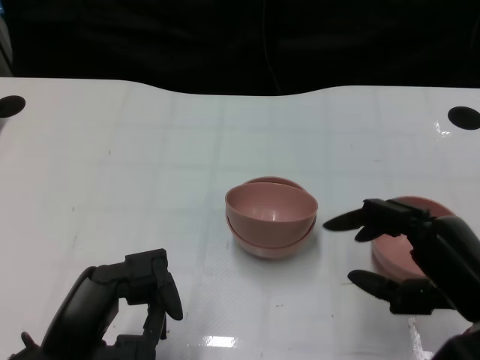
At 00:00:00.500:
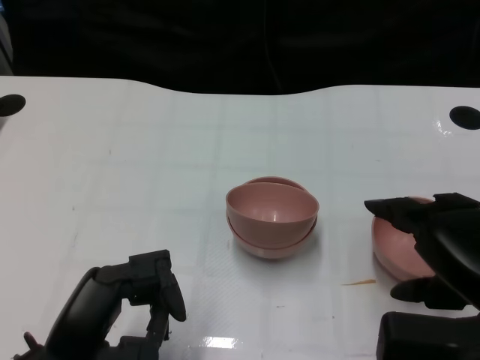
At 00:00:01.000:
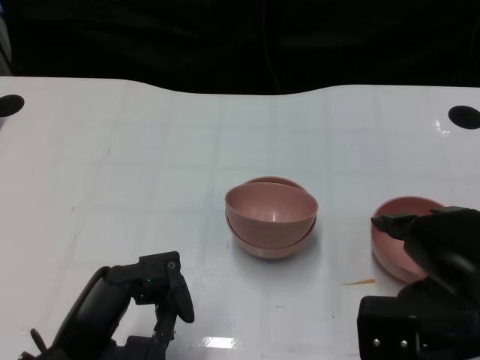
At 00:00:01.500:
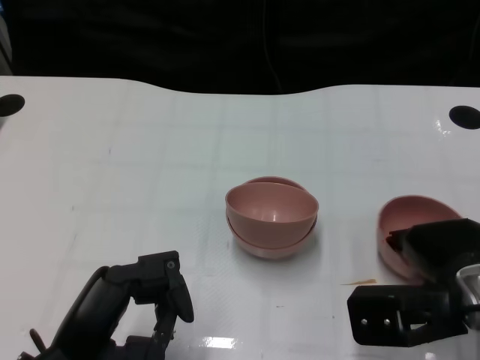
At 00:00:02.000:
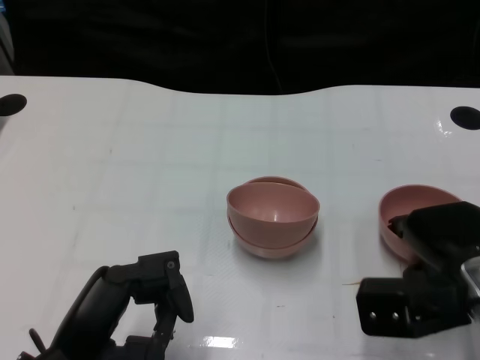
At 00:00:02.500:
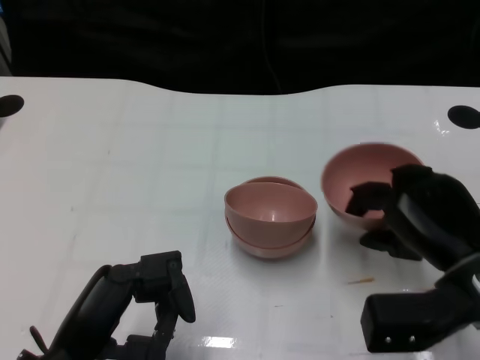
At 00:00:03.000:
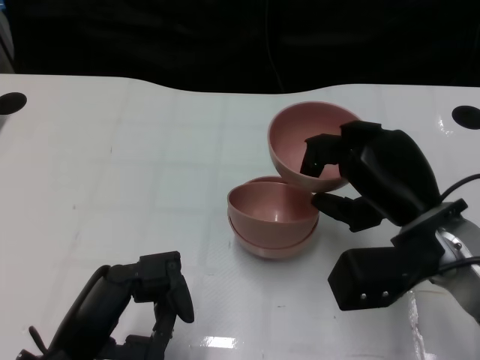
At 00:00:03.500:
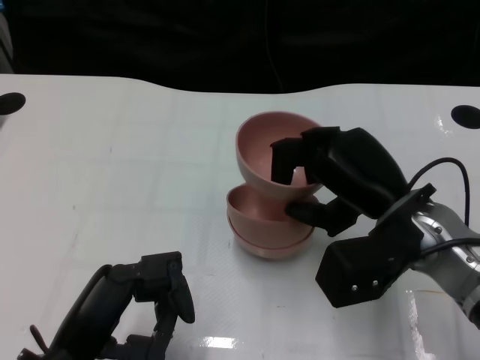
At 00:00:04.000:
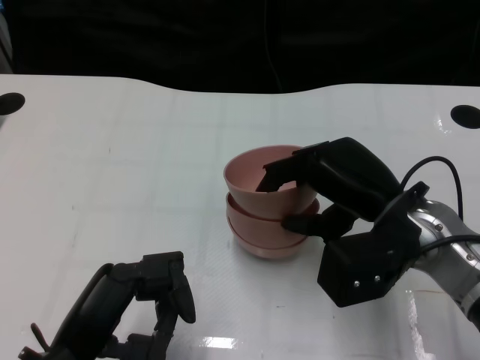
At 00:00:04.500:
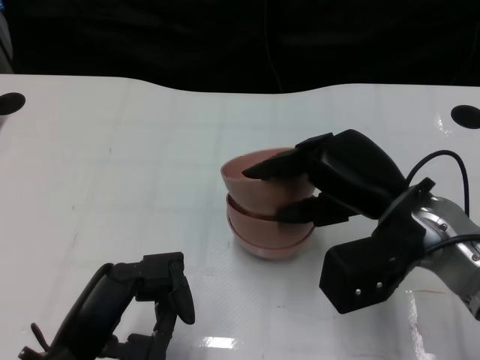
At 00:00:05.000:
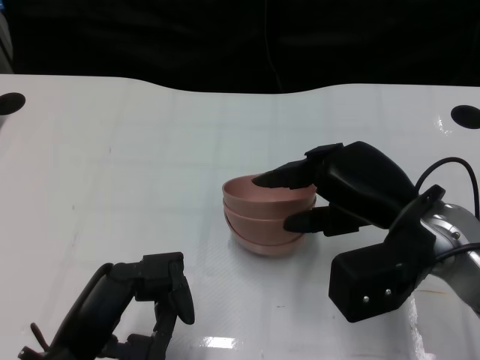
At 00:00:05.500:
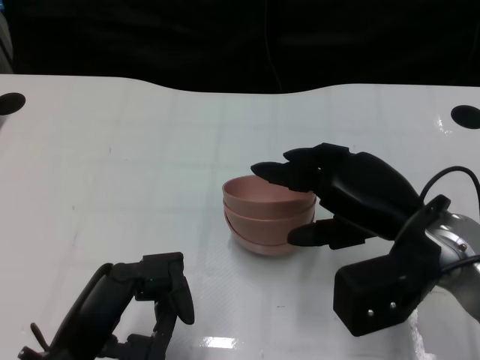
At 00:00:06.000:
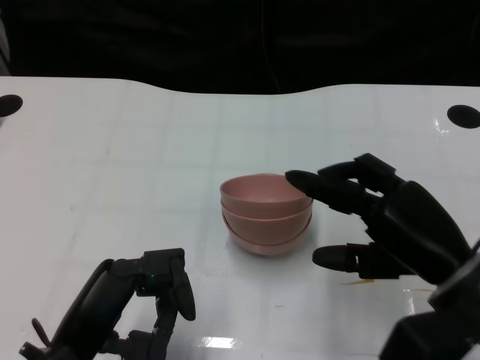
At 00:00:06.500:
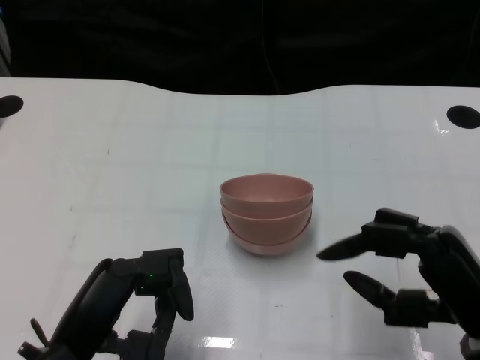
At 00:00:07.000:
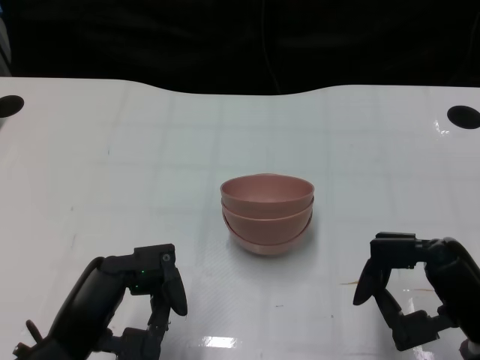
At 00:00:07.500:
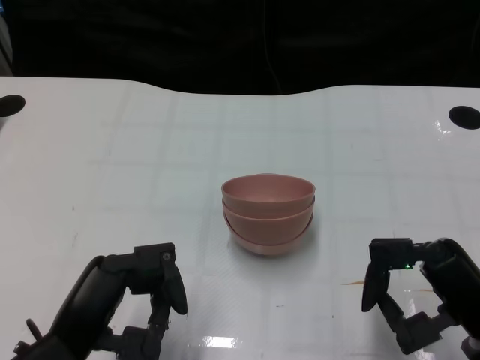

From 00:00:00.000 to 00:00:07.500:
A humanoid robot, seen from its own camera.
Task of the whole recording: Pick up the bowl on one side of the table and place it on top of the middle bowl, then pick up the bowl on the other side of the table and place it on top of the middle bowls.
Step, from 00:00:00.000 to 00:00:02.000: Grasp the bowl on the right with the right gripper.
Step, from 00:00:02.500 to 00:00:05.000: Place the bowl on the right onto the bowl in the middle with right gripper.
From 00:00:00.000 to 00:00:02.000: The right hand is displaced forward by approximately 5 cm.
From 00:00:02.000 to 00:00:04.000: The right hand shifts roughly 5 cm to the left.
From 00:00:04.000 to 00:00:05.500: There are only small adjustments of the hands.
From 00:00:05.500 to 00:00:07.500: The right hand heads backward, to the right and downward, covering approximately 10 cm.
